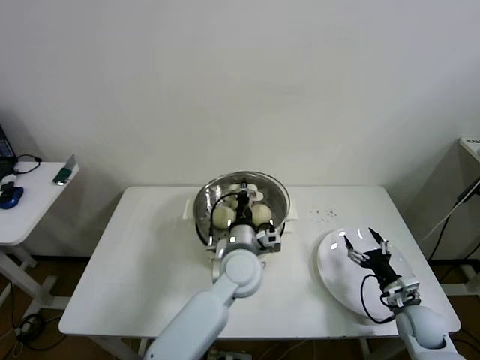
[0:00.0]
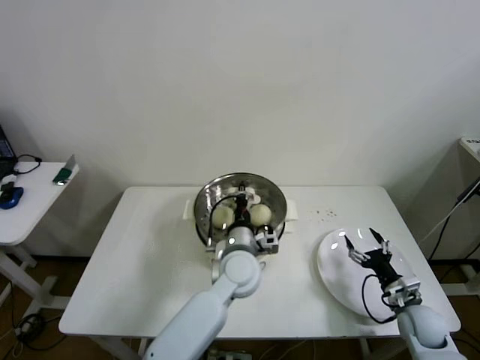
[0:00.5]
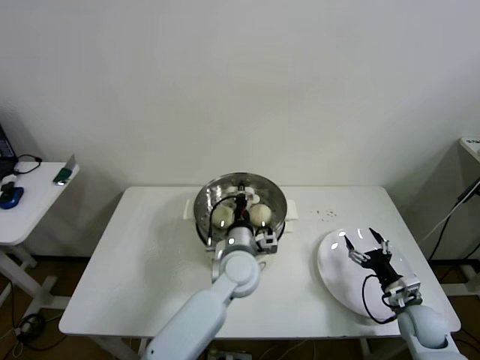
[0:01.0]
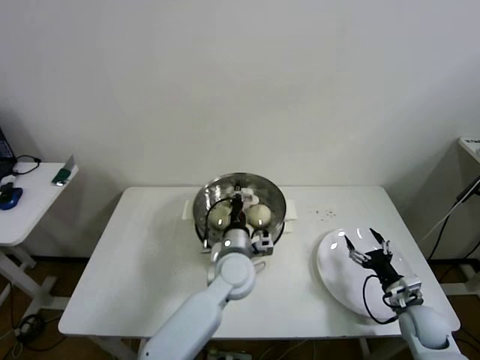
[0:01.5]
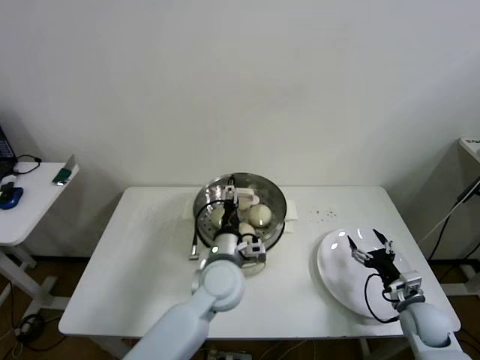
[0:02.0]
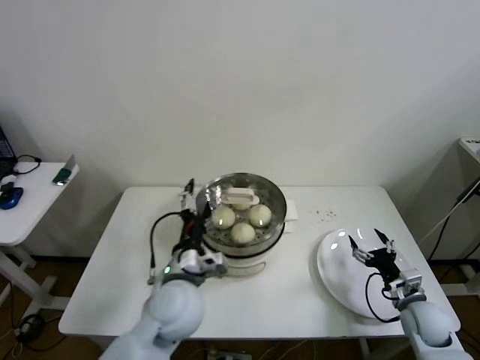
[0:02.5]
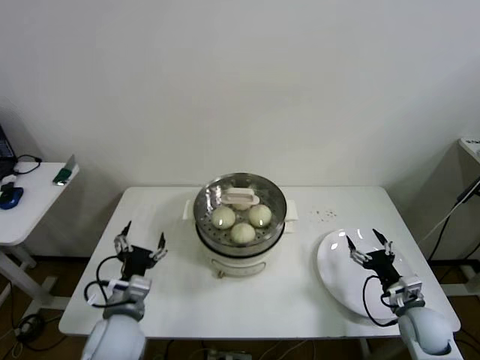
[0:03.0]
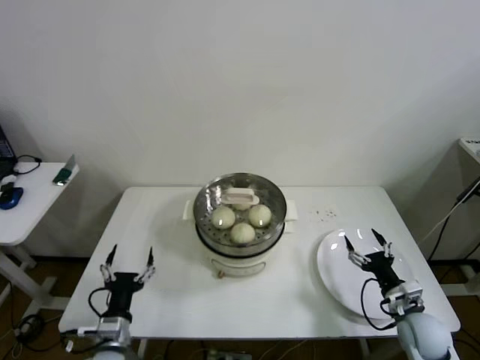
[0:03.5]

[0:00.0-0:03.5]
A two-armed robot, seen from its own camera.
Step, 0:00.0 to 0:02.0: Place the pot lid on the steamer with left gripper.
0:00.0 to 0:02.0: The left gripper opens.
0:02.0 to 0:03.5: The left gripper travels to the left, backward and downward by roughly 30 cm.

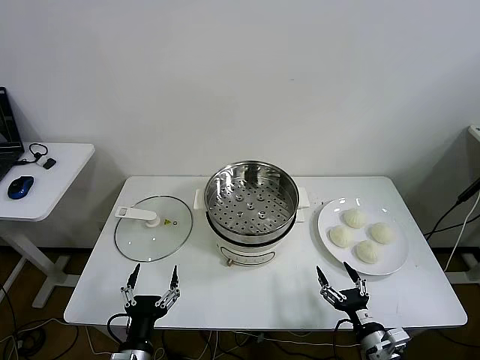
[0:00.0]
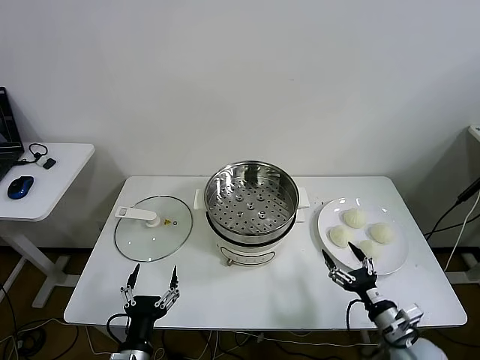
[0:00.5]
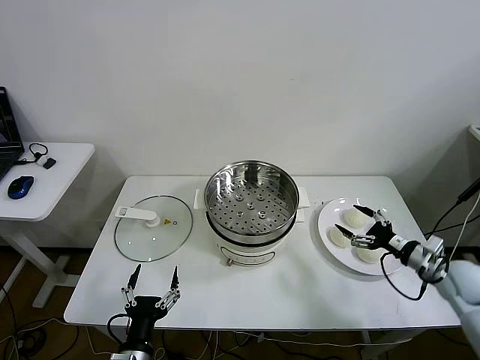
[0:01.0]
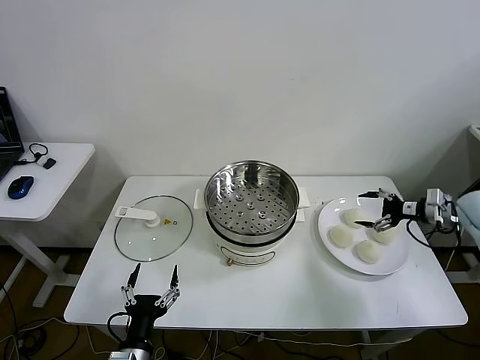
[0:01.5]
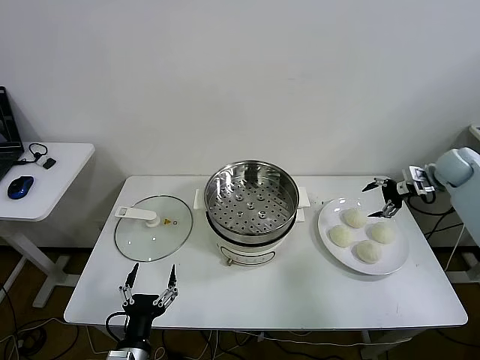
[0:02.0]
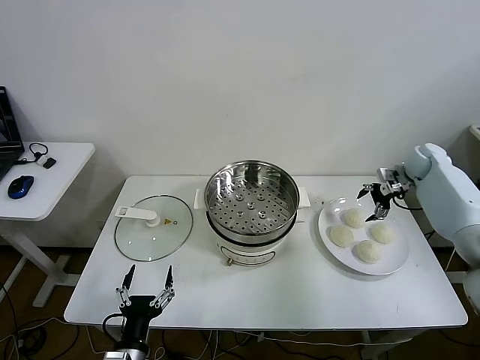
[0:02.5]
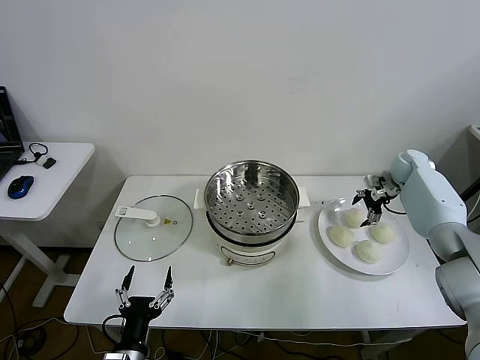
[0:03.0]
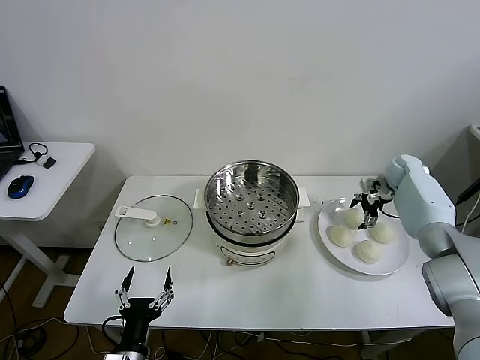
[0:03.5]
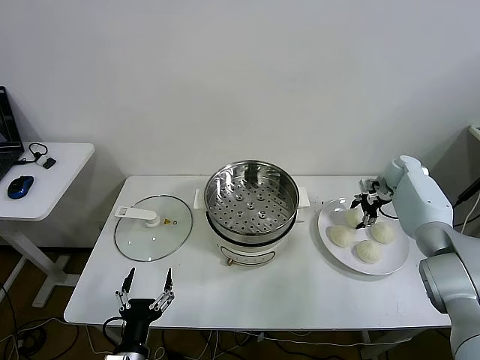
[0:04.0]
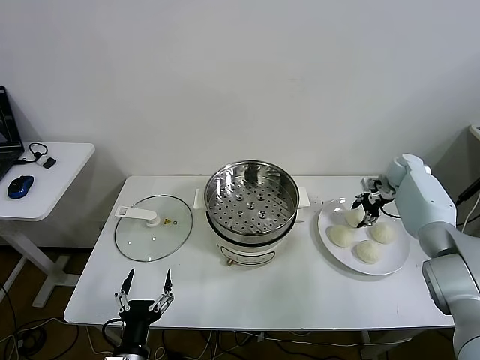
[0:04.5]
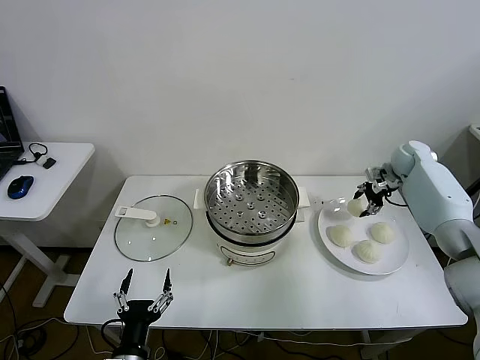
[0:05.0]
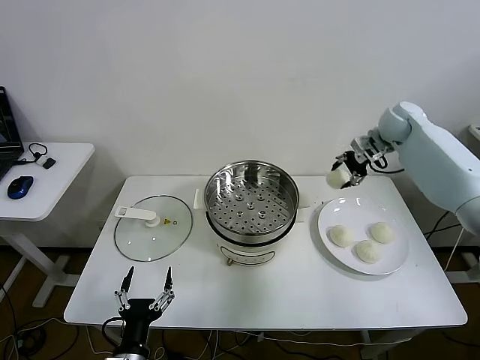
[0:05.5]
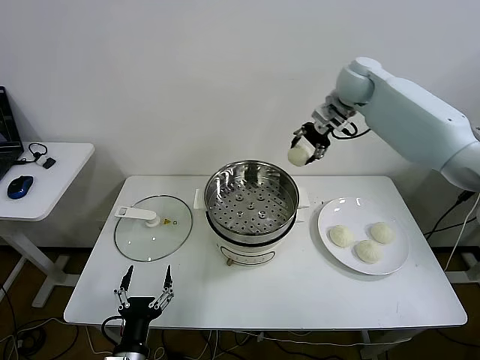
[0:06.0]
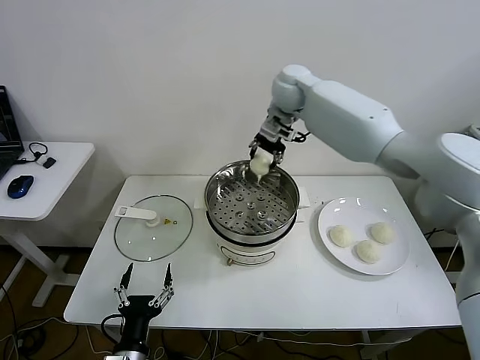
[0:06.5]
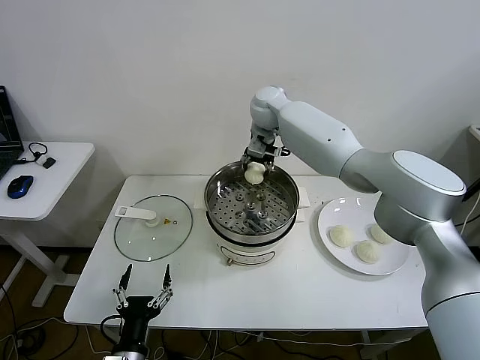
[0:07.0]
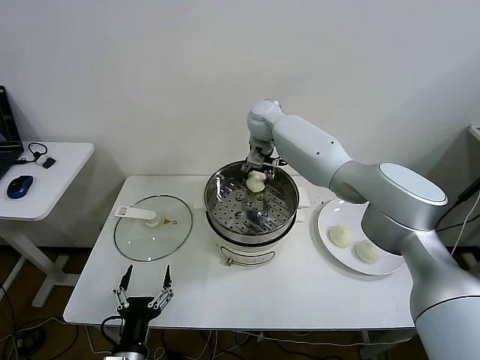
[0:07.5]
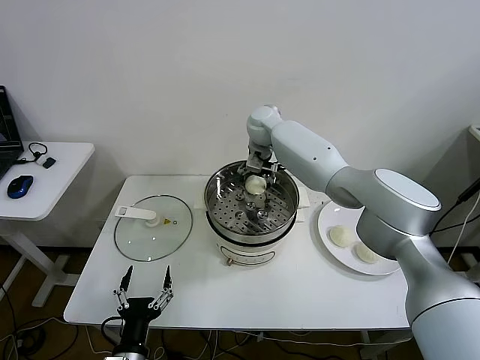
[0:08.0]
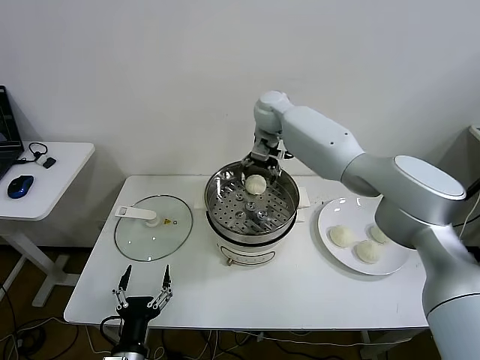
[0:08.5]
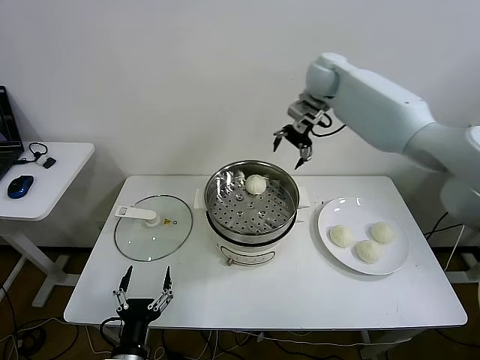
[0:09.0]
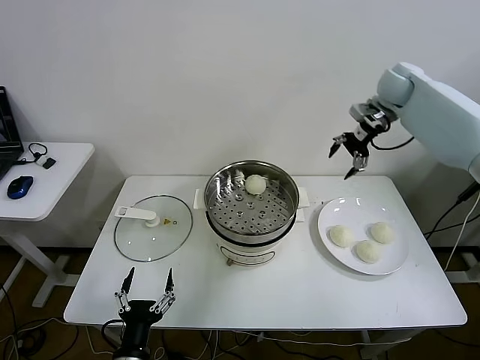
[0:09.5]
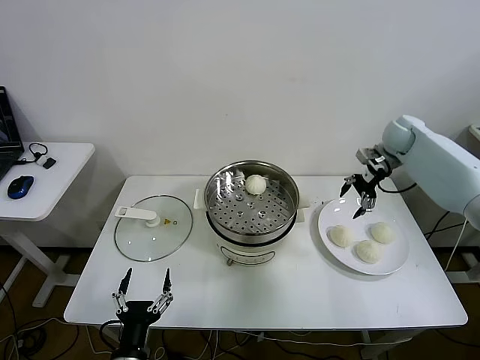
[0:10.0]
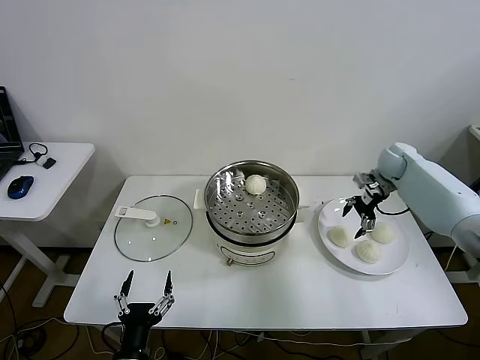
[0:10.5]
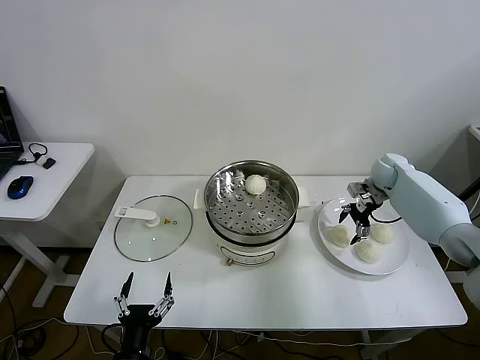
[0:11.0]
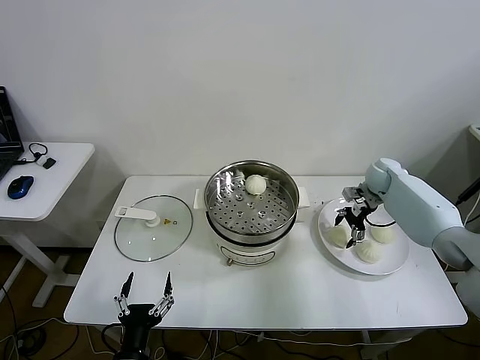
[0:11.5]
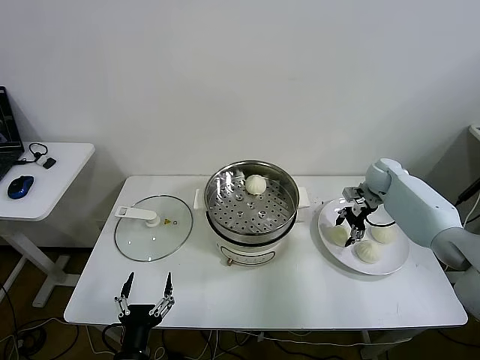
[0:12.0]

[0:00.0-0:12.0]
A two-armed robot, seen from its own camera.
Step, 0:00.0 to 0:04.0: Grasp the baozi in the plate with right gripper.
Step, 0:04.5 to 0:08.0: Place the baozi on the steamer with right gripper.
Step, 0:08.5 to 0:12.0: Grasp the baozi in the plate with right gripper.
0:02.0 to 0:04.0: The right gripper travels downward, to the left and forward by approximately 10 cm, and closes.
0:04.0 to 0:06.0: The right gripper is displaced upward and to the left by approximately 35 cm, and closes its fingers.
0:06.0 to 0:08.0: The right gripper moves to the left and downward, about 20 cm, and opens.
0:08.0 to 0:10.0: The right gripper is displaced to the right by some 35 cm.
0:10.0 to 0:12.0: The right gripper moves downward, about 10 cm, and closes its fingers.

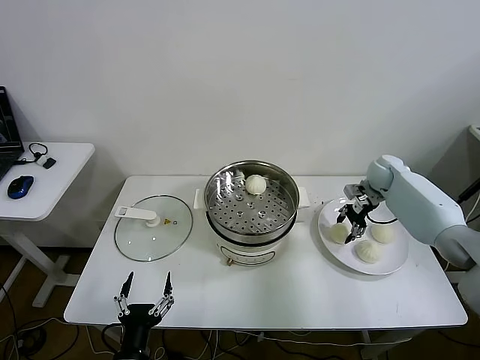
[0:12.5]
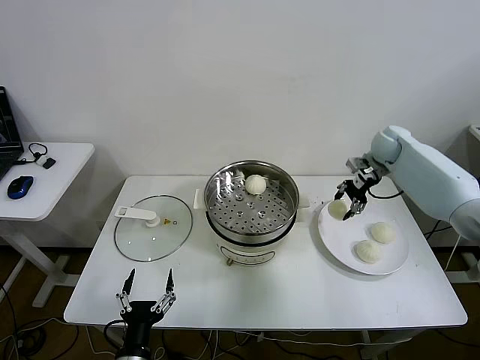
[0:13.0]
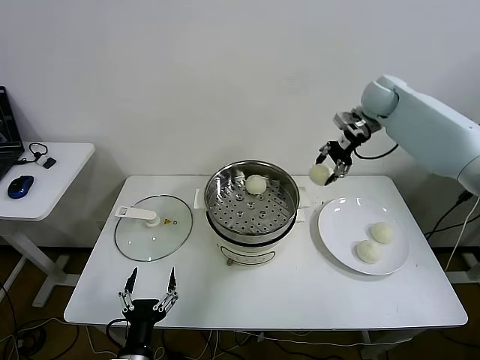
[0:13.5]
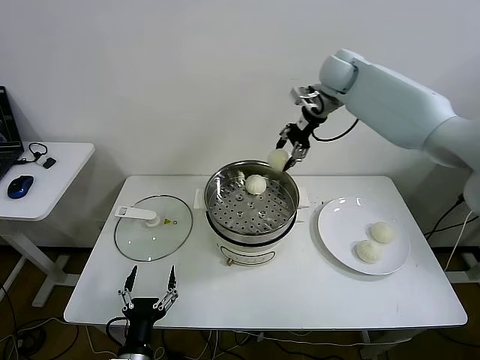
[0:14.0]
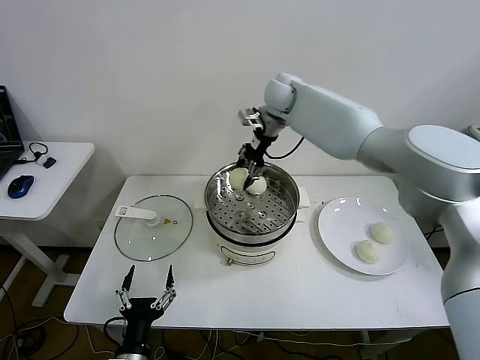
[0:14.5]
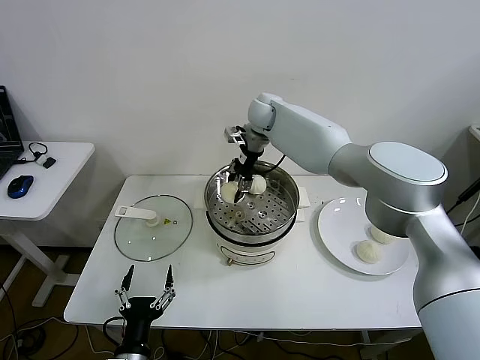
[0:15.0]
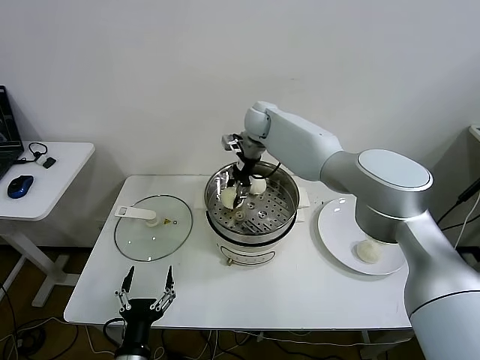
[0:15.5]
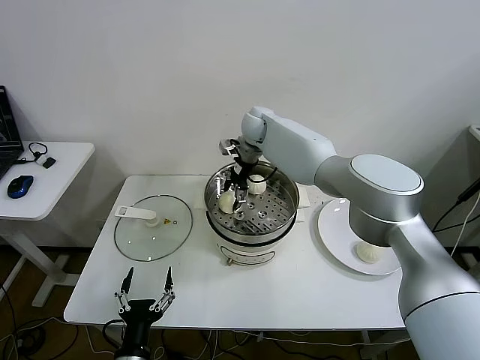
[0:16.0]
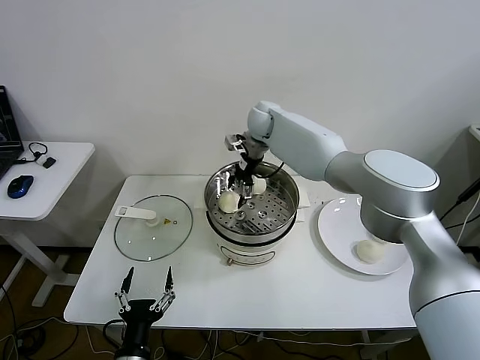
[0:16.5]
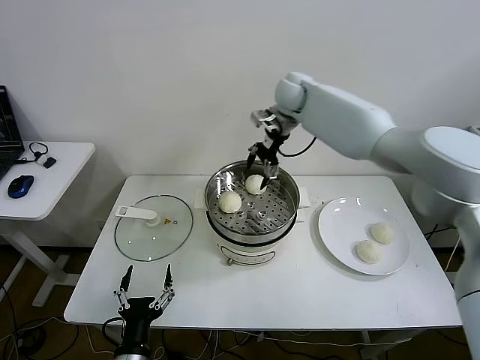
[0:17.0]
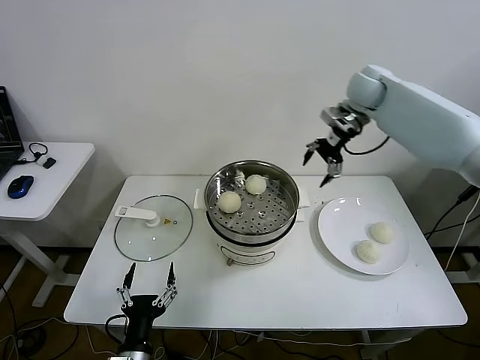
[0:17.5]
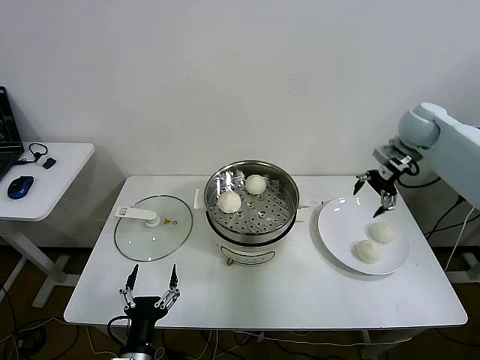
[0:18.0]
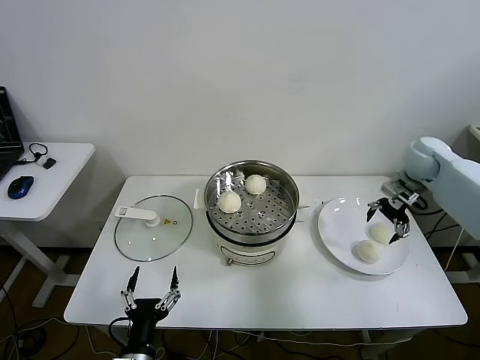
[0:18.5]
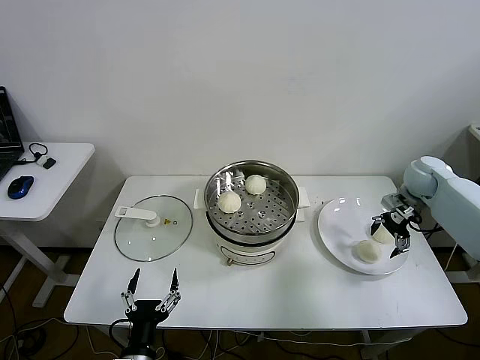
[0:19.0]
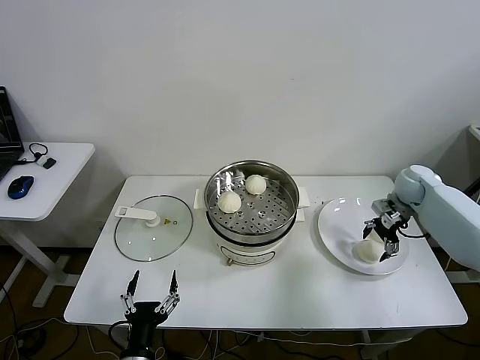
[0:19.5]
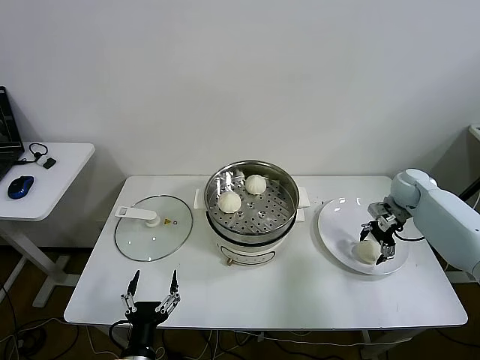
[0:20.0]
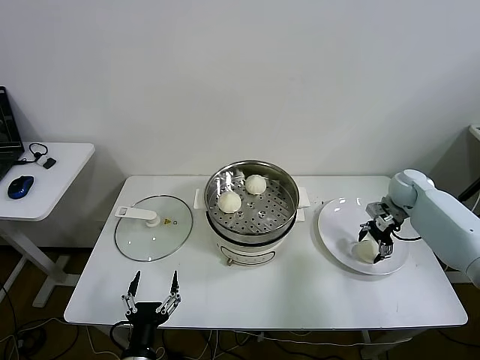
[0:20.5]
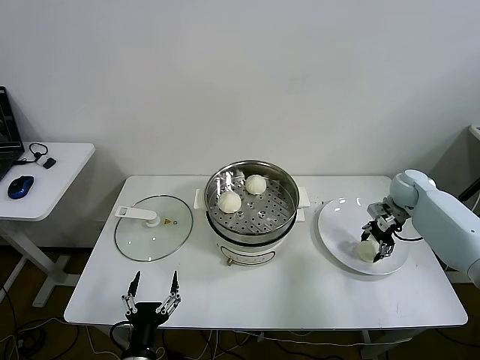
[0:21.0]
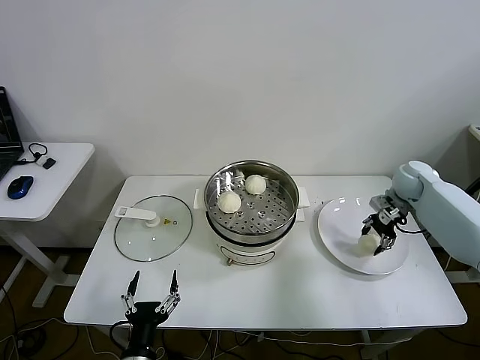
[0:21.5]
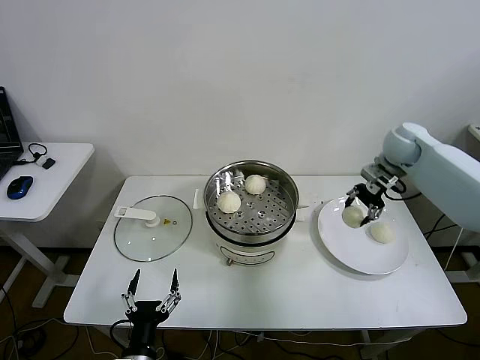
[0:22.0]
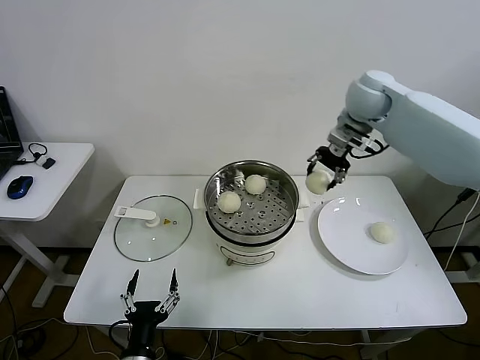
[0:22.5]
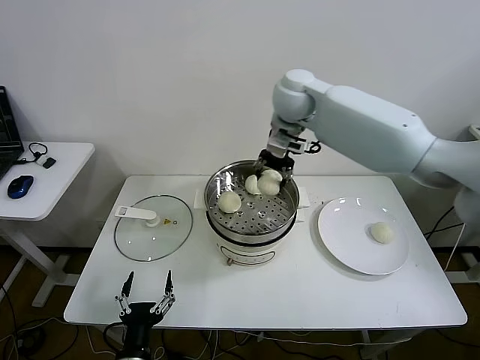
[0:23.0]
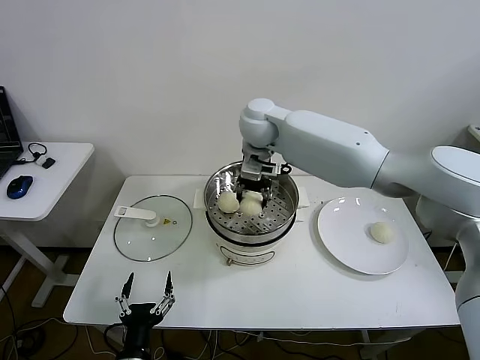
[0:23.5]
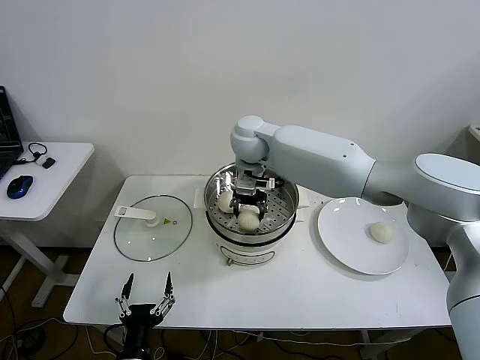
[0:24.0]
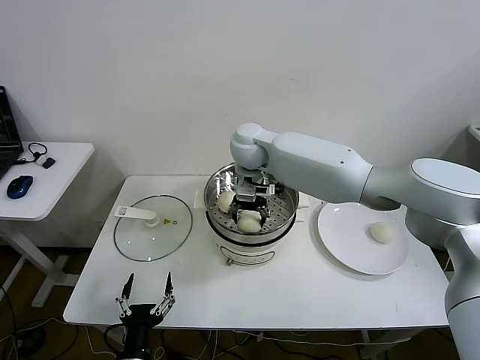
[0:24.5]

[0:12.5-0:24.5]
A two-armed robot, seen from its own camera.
Step, 0:12.5 to 0:16.0: Place the baozi on the steamer with right gripper.
Step, 0:16.5 to 0:21.0: Grasp the baozi in the plate with right gripper.
0:12.5 to 0:14.5: The right gripper shifts about 35 cm to the left and upward.
0:14.5 to 0:16.5: The right gripper goes approximately 5 cm downward, and opens its fingers.
0:16.5 to 0:18.5: The right gripper heads to the right, covering approximately 35 cm.
0:18.5 to 0:20.5: The right gripper goes approximately 10 cm downward.
0:20.5 to 0:22.5: The right gripper travels upward and to the left by about 30 cm, and closes up.
0:22.5 to 0:24.5: The right gripper shifts about 25 cm to the left and downward, and opens up.
